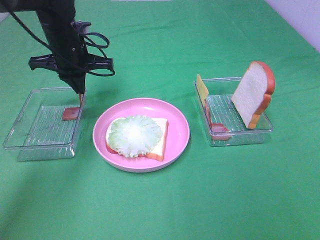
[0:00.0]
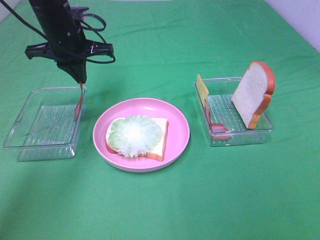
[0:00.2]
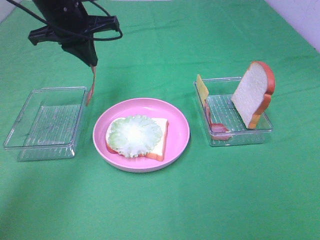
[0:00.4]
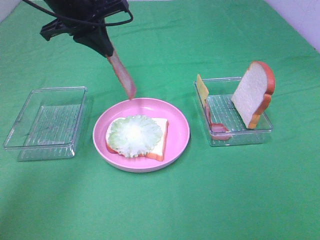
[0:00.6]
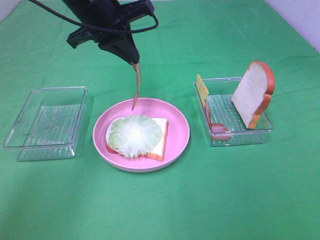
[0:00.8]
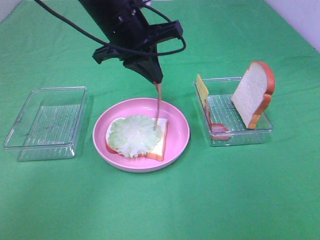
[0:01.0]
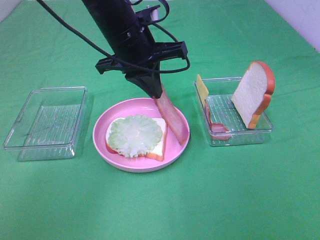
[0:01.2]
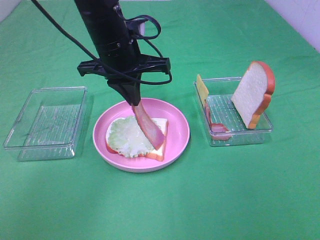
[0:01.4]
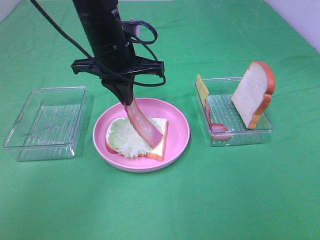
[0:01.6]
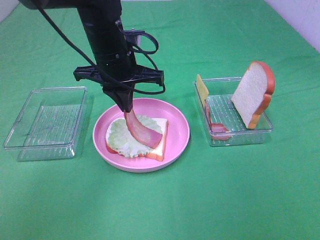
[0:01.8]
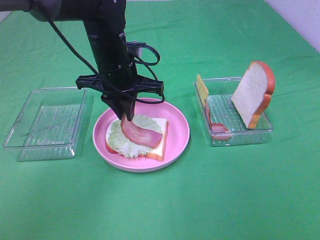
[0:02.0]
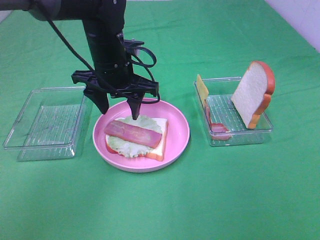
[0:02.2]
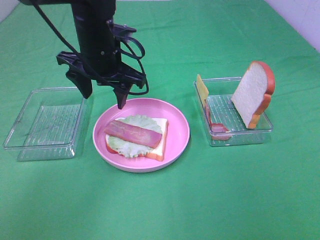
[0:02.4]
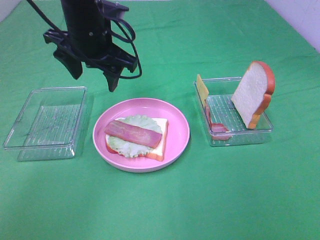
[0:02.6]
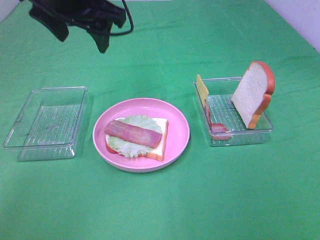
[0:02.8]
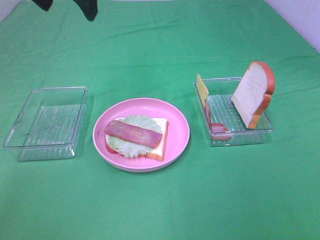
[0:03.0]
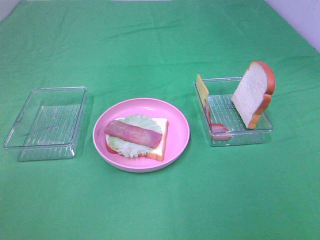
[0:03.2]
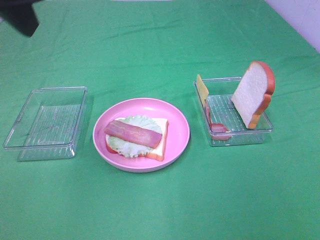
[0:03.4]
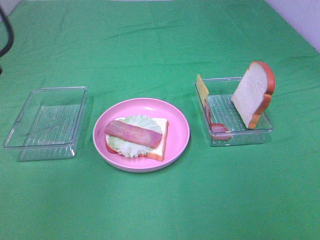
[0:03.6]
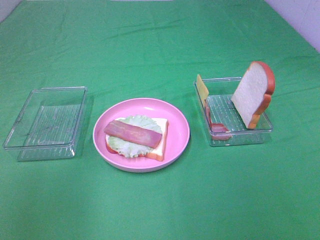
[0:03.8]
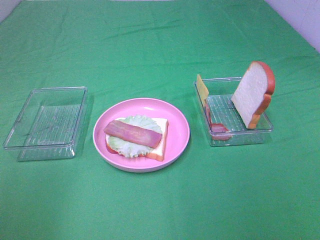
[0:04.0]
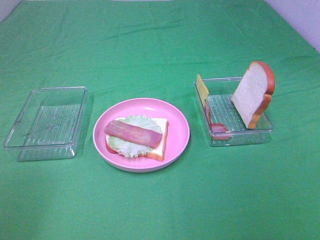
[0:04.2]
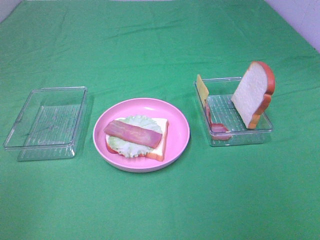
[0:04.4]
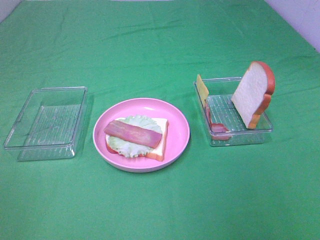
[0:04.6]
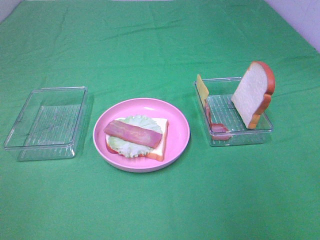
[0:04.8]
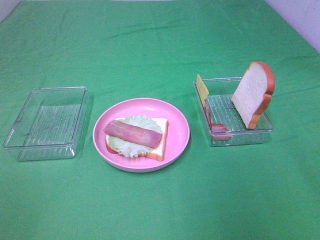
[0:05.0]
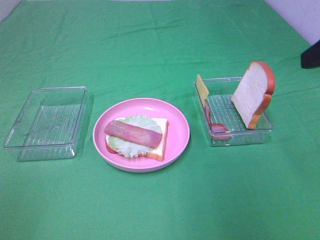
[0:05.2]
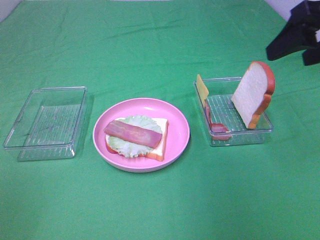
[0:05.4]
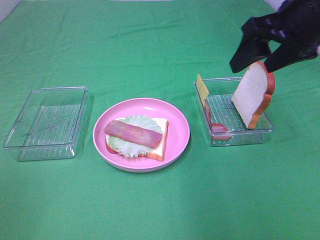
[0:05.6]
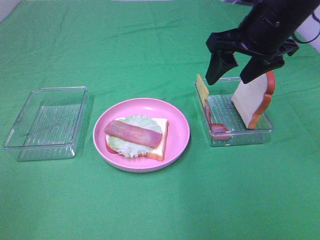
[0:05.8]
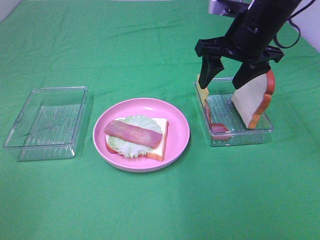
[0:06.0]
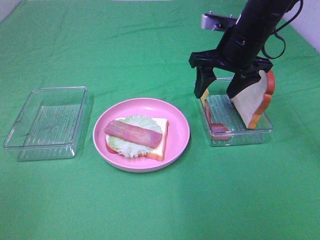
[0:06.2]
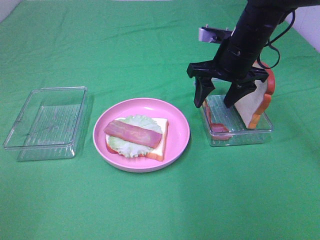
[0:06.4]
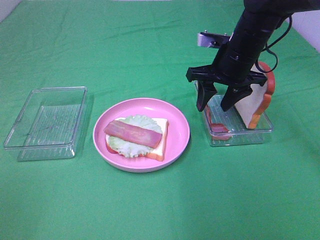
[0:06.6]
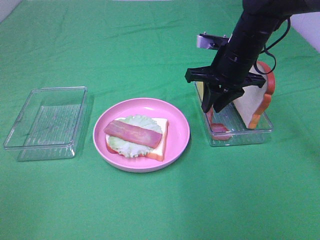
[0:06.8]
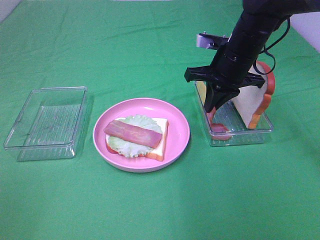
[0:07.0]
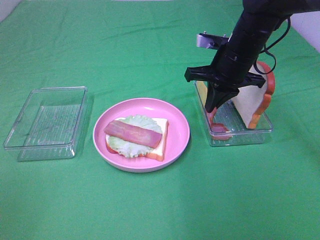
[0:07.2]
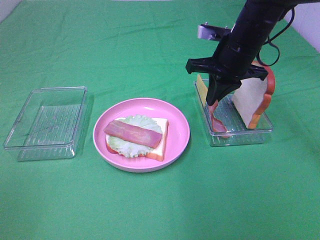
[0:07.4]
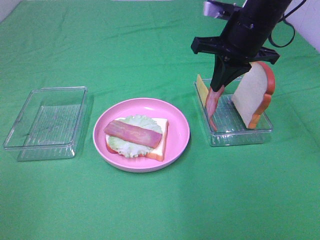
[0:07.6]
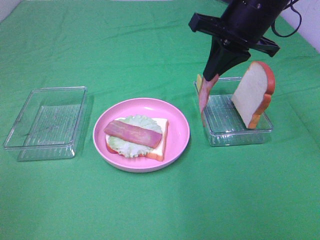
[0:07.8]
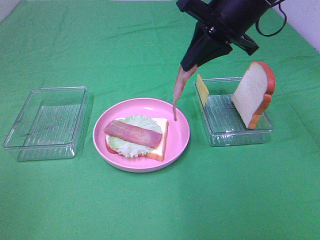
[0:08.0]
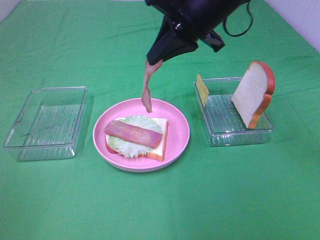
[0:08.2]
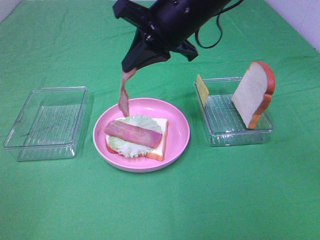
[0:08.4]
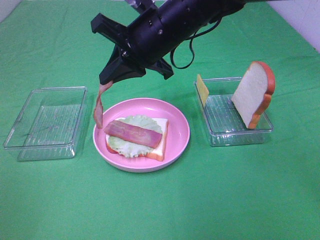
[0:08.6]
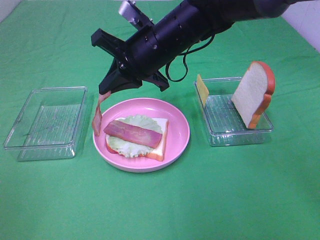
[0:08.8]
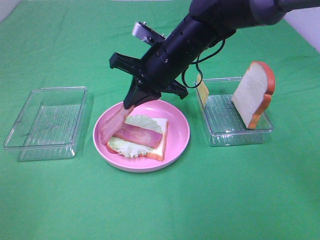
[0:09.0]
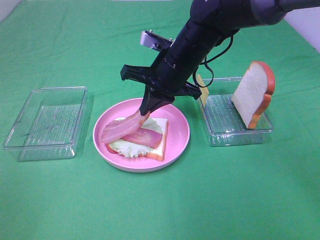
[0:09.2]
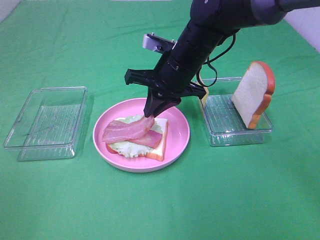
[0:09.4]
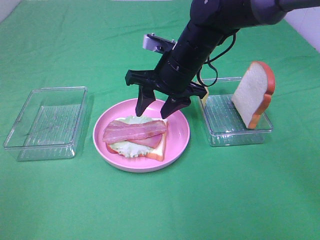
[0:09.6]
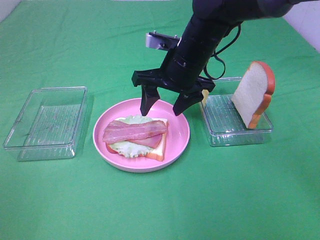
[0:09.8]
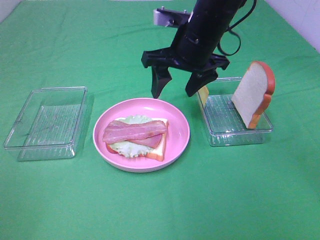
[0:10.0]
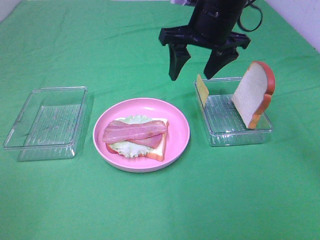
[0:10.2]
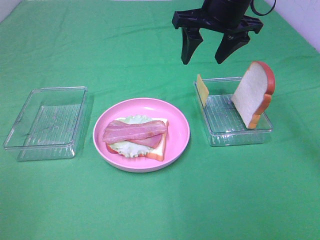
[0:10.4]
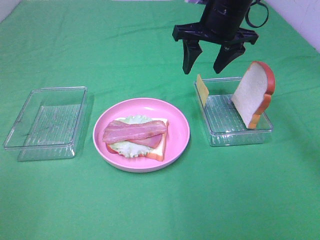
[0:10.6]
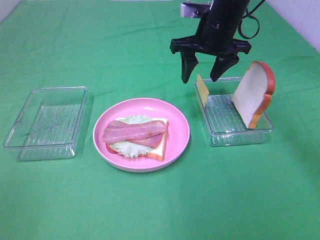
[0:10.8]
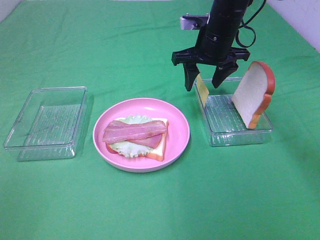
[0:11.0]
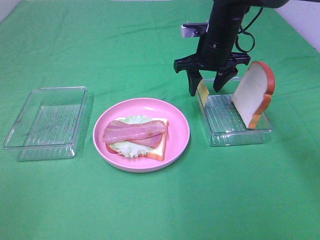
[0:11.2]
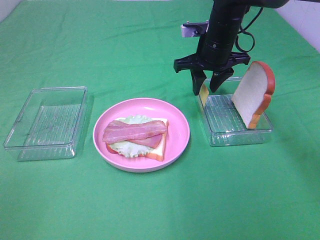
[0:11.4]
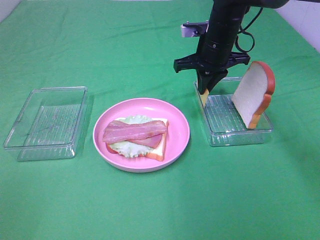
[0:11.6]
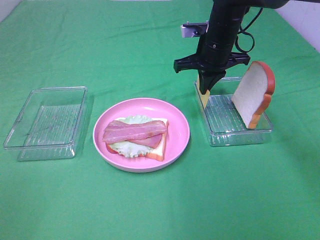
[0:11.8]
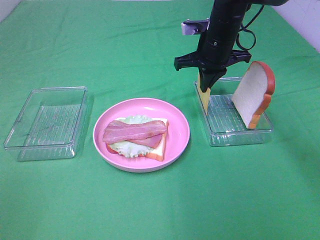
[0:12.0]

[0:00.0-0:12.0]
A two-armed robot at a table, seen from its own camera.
Task of the whole recording: Make sandwiches.
Step, 0:00.0 to 0:02.2: Left hand:place bacon on lettuce slice.
Step, 0:02.4 to 0:07.2: Right hand:grab the bacon.
Step, 0:07.4 to 0:09.4: Right hand:place bacon on bacon.
Step, 0:09.6 to 0:11.8: Right hand:grab the cheese slice.
0:00.0 to 0:01.6: The left gripper is displaced to the right and backward by about 10 cm.
0:01.6 to 0:03.0: The left gripper goes about 15 cm upward, and opens up.
0:03.0 to 0:04.4: The left gripper moves backward and to the left, approximately 35 cm.
0:04.4 to 0:06.0: The right gripper heads forward, covering some 35 cm.
0:06.0 to 0:07.6: The right gripper closes its fingers.
0:07.6 to 0:09.0: The right gripper is displaced to the left and downward by some 15 cm.
0:09.0 to 0:10.4: The right gripper moves upward and to the right, approximately 10 cm, and opens its fingers.
0:10.4 to 0:12.0: The right gripper is displaced downward by approximately 10 cm, and closes up.

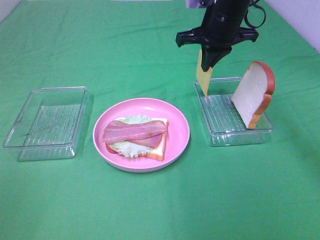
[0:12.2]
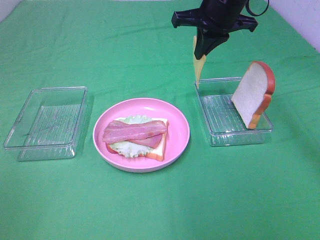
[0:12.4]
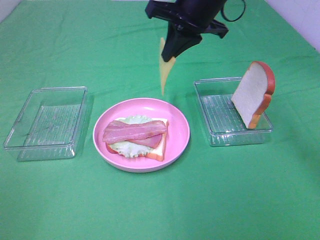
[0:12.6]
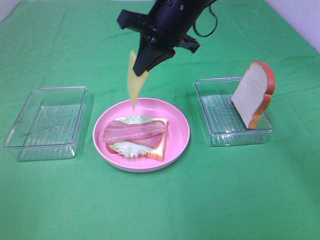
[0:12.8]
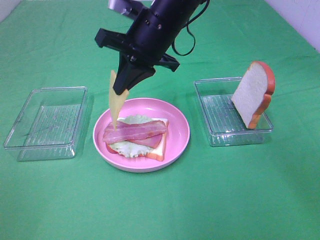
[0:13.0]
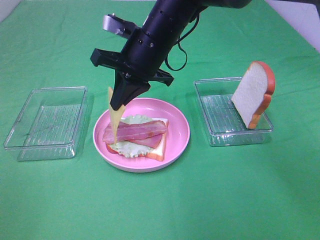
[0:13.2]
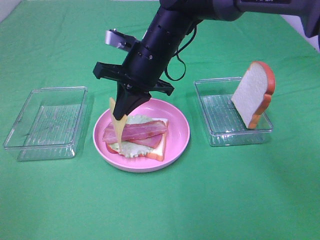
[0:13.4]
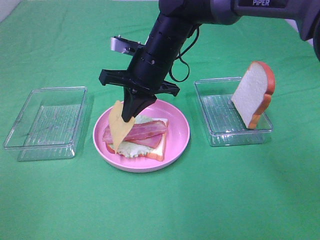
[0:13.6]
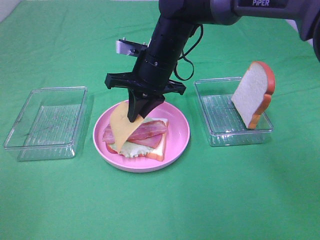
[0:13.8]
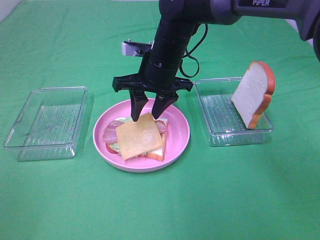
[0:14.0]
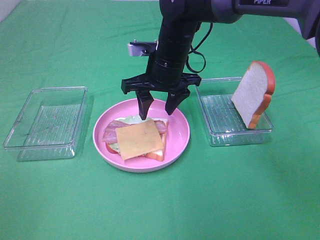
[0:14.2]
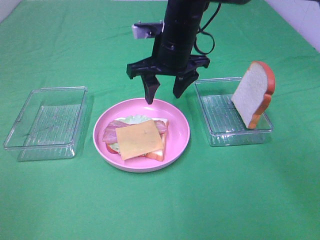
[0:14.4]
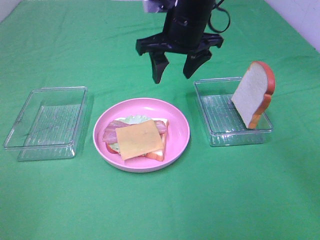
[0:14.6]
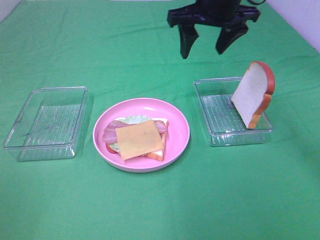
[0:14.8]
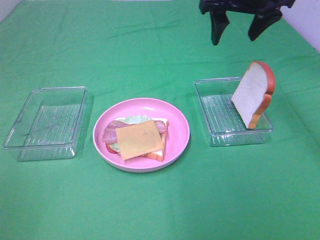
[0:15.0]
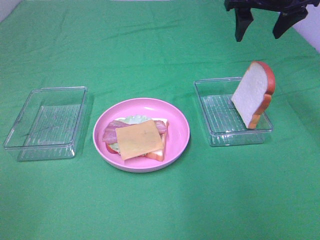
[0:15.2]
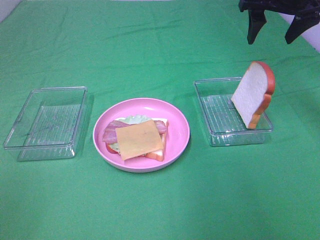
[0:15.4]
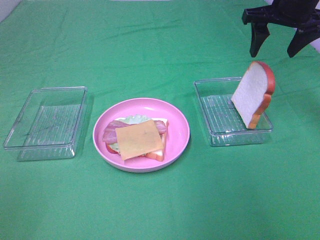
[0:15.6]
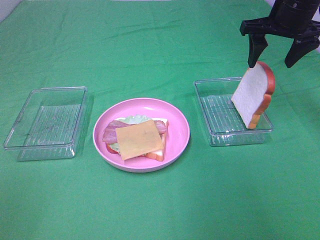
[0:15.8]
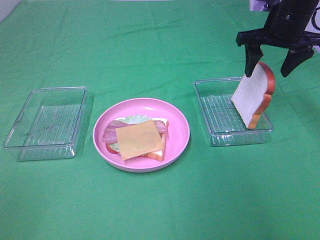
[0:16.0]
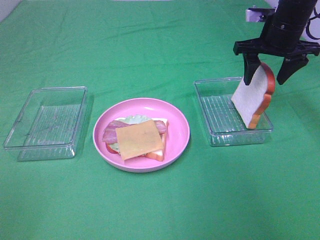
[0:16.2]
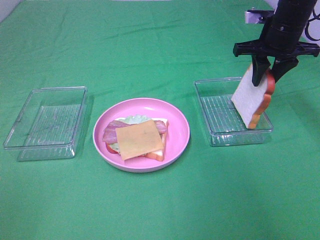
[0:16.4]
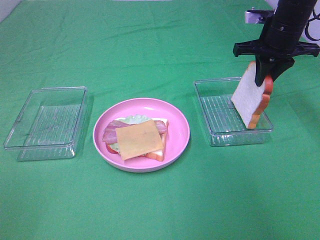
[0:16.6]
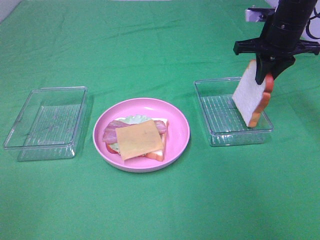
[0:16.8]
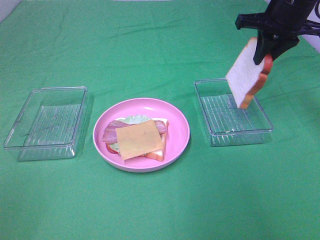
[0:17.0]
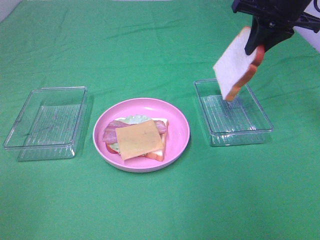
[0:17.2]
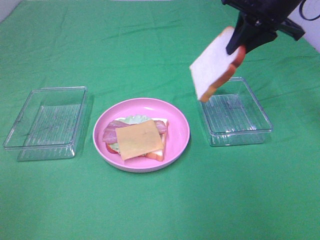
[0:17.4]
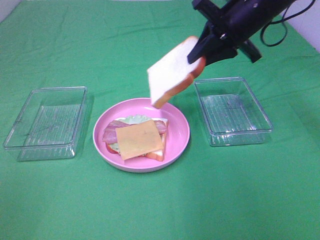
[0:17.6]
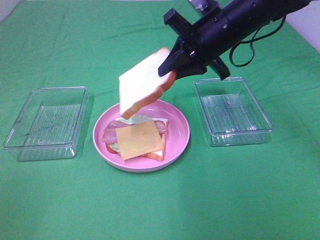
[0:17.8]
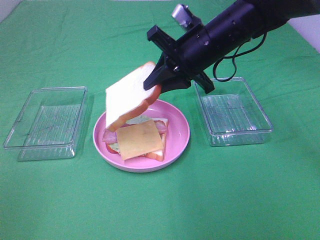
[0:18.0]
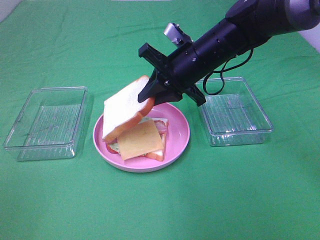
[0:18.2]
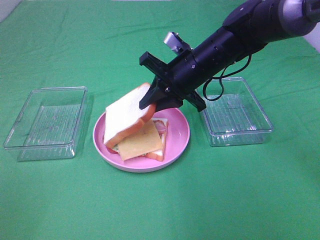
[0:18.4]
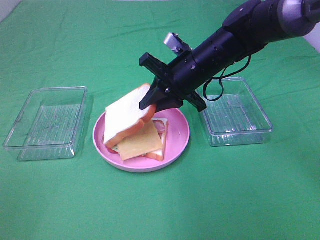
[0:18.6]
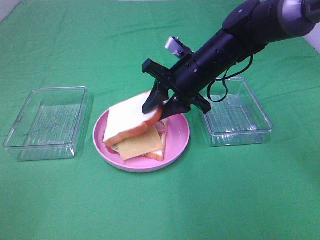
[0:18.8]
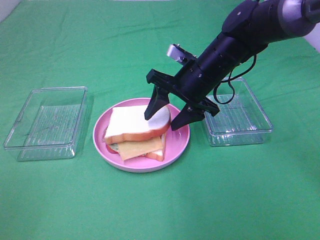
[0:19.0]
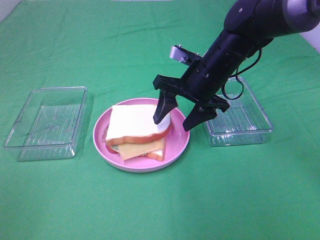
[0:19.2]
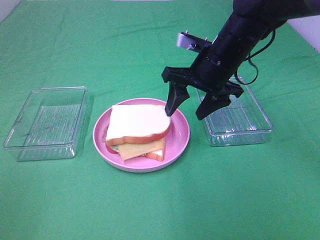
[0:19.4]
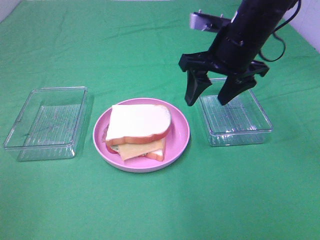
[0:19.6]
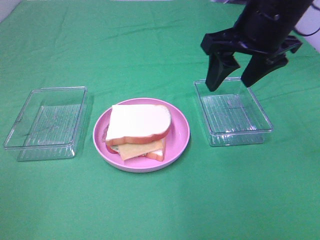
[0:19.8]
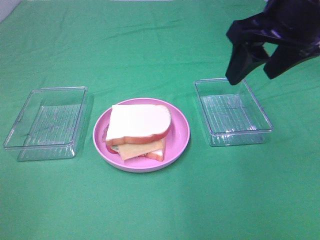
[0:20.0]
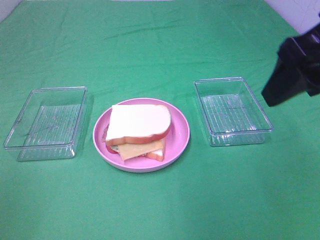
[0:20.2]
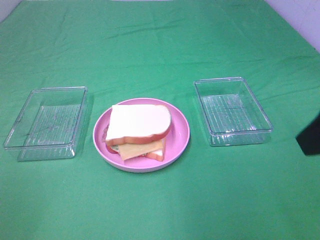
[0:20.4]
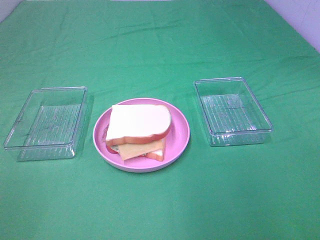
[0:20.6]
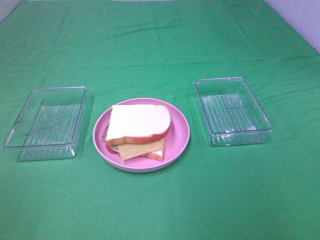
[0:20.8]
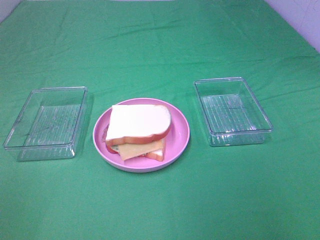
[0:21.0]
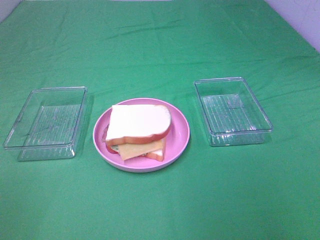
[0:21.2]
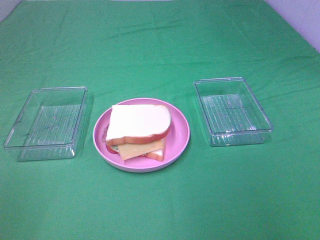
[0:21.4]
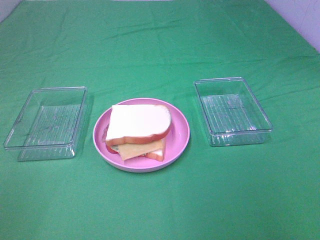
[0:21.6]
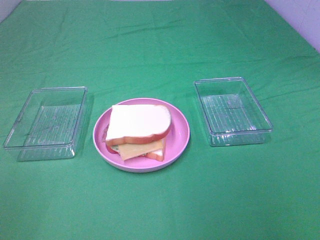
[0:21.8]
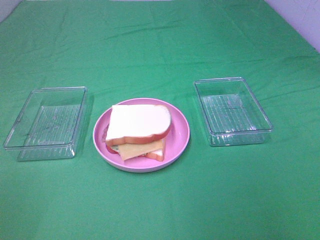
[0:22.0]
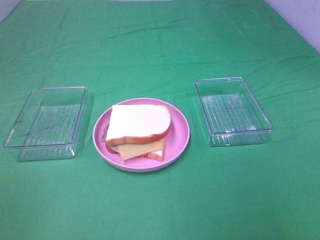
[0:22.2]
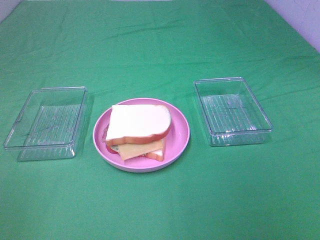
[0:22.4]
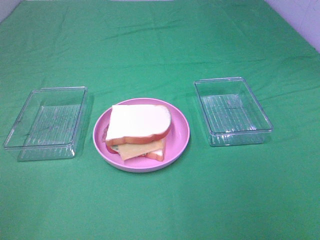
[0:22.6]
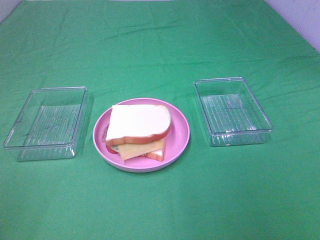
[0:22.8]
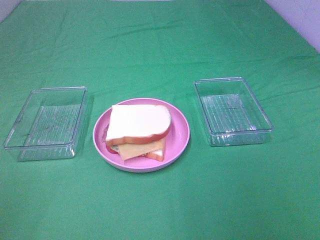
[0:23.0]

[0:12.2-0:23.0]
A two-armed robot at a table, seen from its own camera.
Task of the whole recording: Make sandwiches.
Step, 0:12.2 to 0:14.0: Right hand:place the cheese slice on top of the bacon.
Step, 0:14.2 to 0:16.6: Right hand:grab the bread slice.
Step, 0:16.8 to 0:19.0: Right hand:place the bread slice on the cheese slice.
0:12.2 to 0:13.8: The right gripper heads to the left, downward and backward, covering approximately 15 cm.
0:13.8 to 0:15.2: The right gripper goes approximately 25 cm to the right and upward, and opens up.
0:15.2 to 0:16.8: The right gripper moves downward, about 10 cm, and closes its fingers.
0:16.8 to 0:18.4: The right gripper shifts approximately 15 cm to the left, downward and backward.
0:18.4 to 0:20.0: The right gripper goes some 20 cm upward, backward and to the right, and opens.
0:20.0 to 0:21.4: The right gripper is displaced backward and to the right by about 25 cm.
